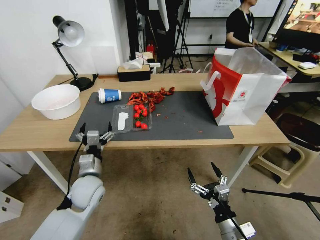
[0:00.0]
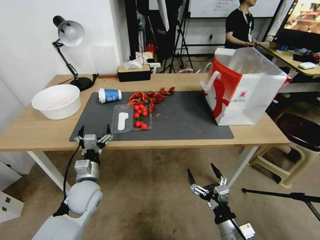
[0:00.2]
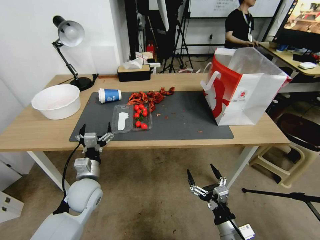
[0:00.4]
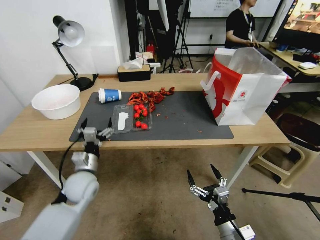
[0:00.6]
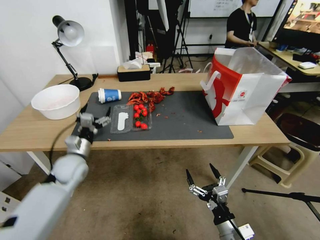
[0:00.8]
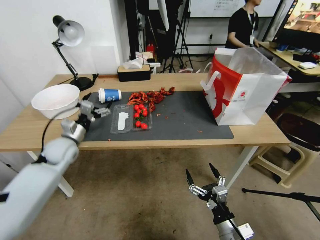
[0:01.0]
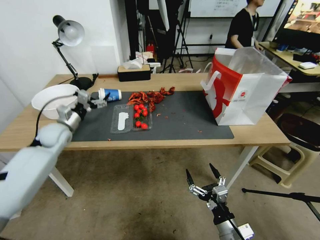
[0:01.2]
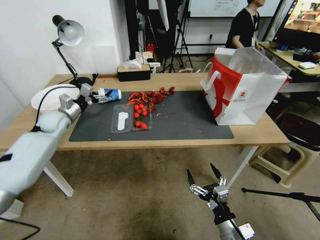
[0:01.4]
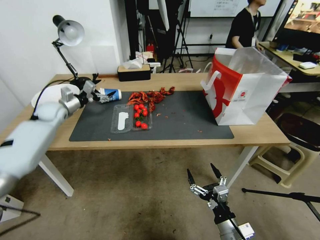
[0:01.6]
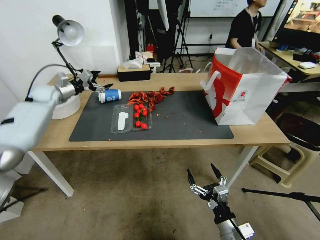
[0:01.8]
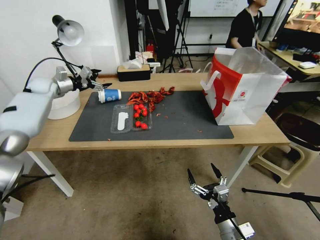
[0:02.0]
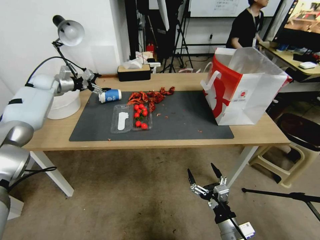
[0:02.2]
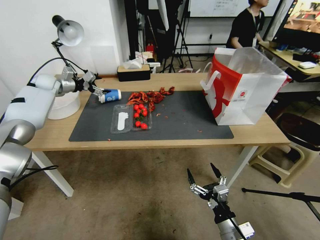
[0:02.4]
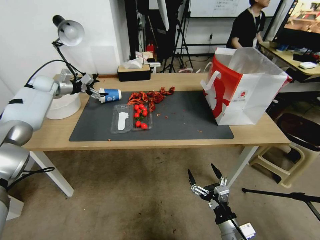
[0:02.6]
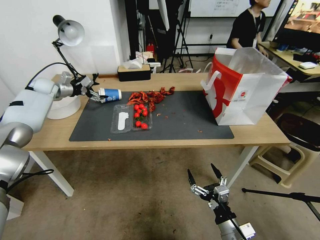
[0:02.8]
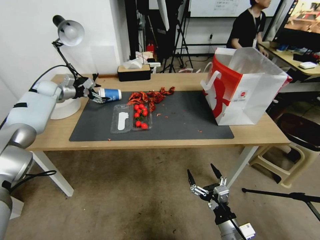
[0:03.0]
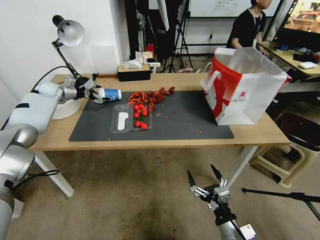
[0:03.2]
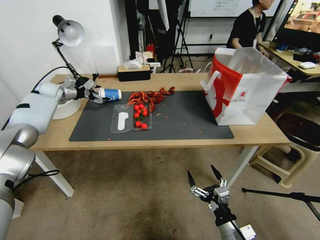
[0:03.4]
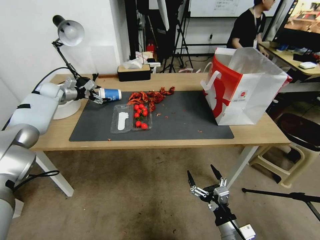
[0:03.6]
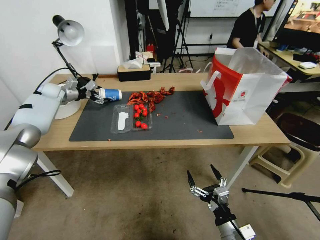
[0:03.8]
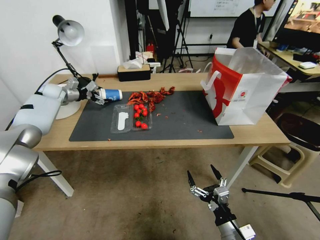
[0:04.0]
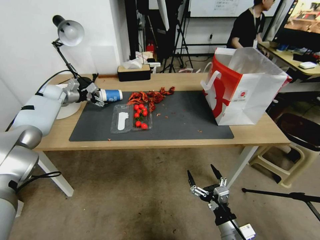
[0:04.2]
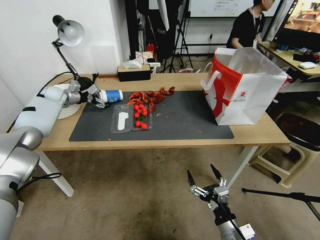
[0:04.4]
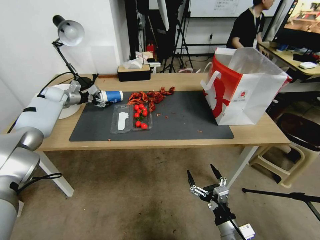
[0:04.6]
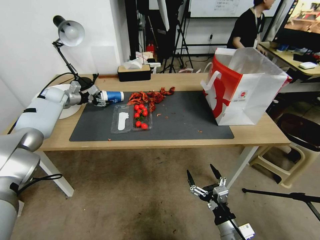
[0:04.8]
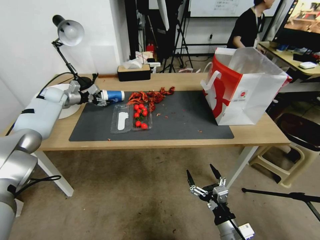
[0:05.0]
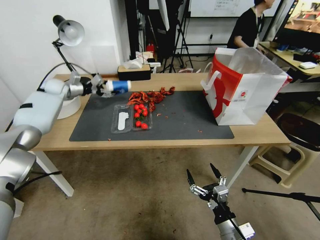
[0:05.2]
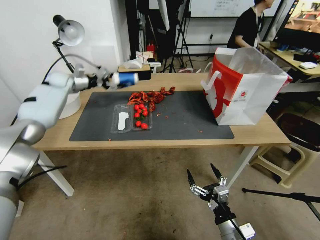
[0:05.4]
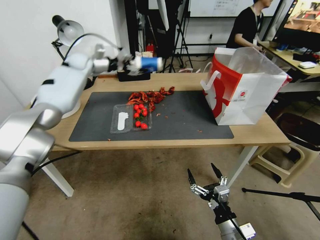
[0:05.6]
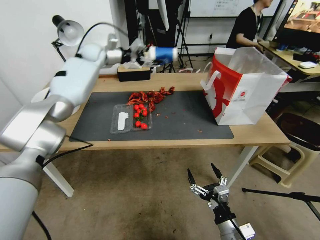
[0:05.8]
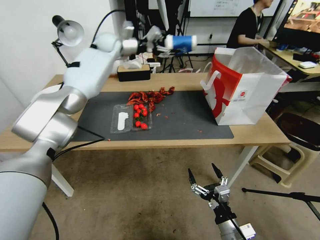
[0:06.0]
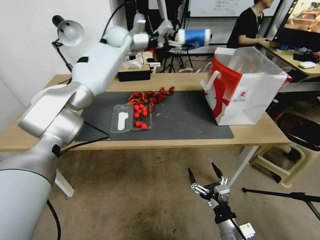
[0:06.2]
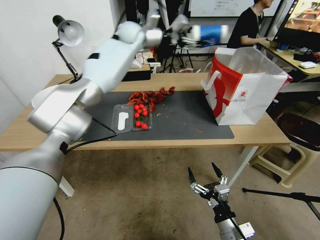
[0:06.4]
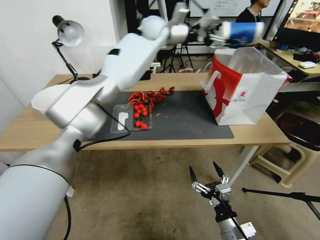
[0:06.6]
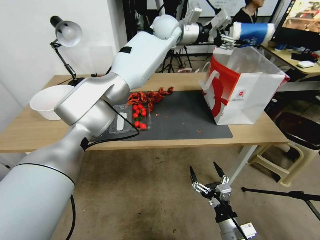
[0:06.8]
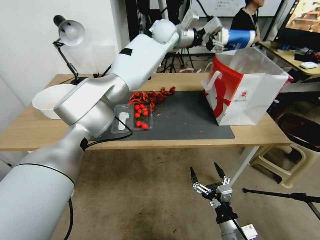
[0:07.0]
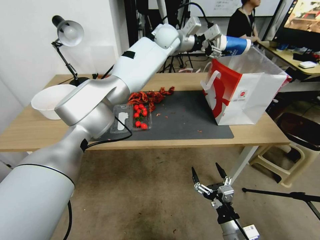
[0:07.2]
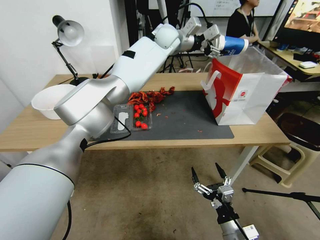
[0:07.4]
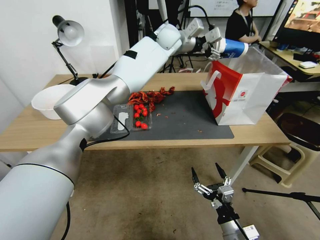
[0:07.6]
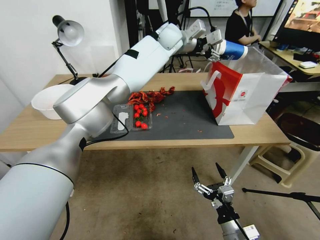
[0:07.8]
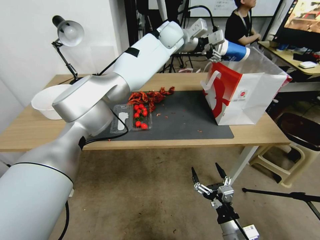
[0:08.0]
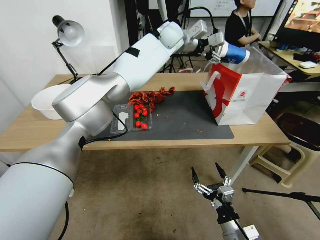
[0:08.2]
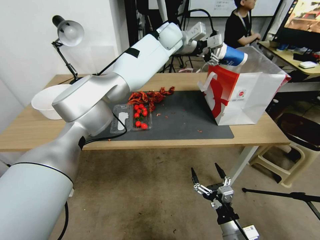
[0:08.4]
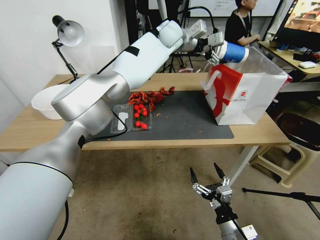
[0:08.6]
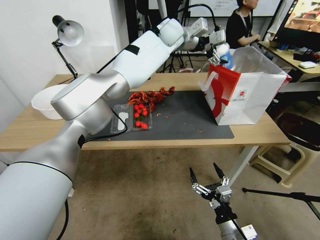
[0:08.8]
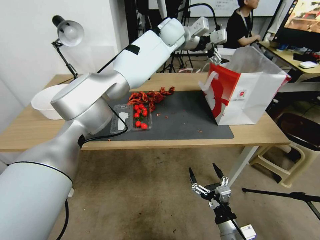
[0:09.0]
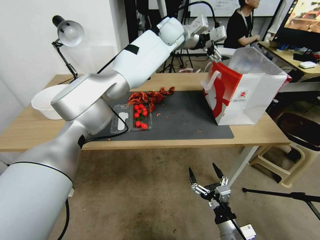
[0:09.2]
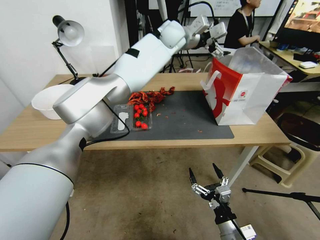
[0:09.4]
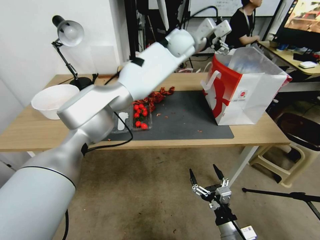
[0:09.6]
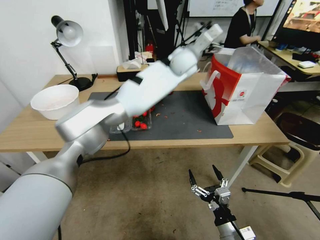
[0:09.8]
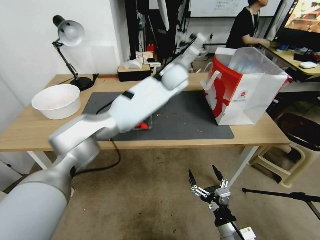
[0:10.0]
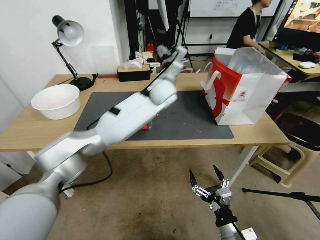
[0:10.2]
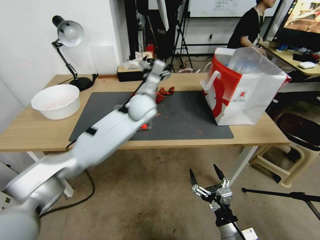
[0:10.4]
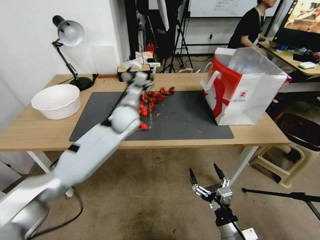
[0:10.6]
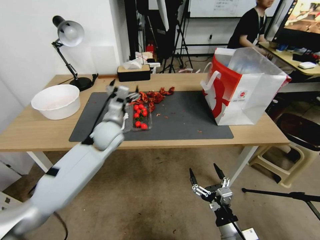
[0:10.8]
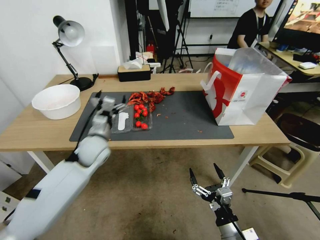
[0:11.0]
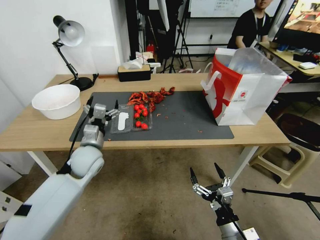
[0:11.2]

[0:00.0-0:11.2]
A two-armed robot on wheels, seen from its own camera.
0:00.0 to 0:01.6: The left gripper goes about 35 cm forward, to the left and upward.
0:01.6 to 0:03.2: The left gripper shifts approximately 10 cm forward and to the left.
0:03.2 to 0:04.8: The left gripper closes.
0:04.8 to 0:06.4: The left gripper moves to the right and upward, roughly 50 cm.
0:06.4 to 0:08.0: The left gripper travels to the right by roughly 10 cm.
0:08.0 to 0:09.6: The left gripper ends up about 5 cm from where it was, and opens.
0:09.6 to 0:11.2: The left gripper moves to the left, downward and backward, about 50 cm.

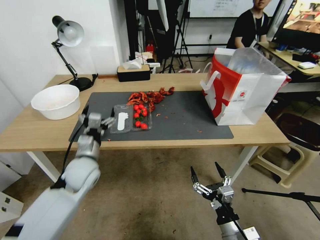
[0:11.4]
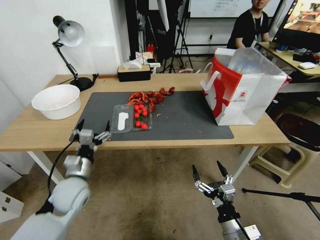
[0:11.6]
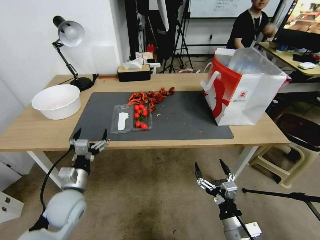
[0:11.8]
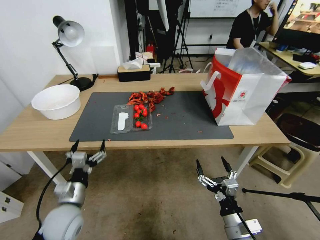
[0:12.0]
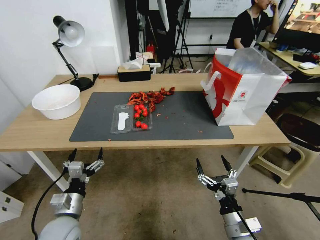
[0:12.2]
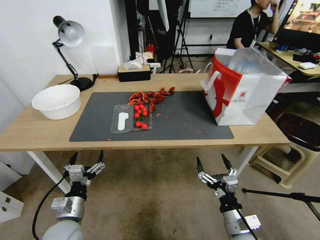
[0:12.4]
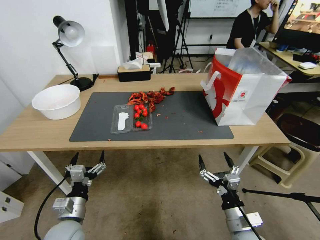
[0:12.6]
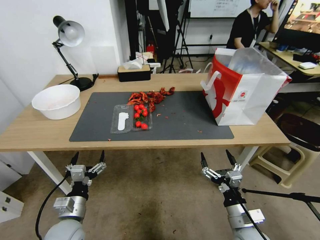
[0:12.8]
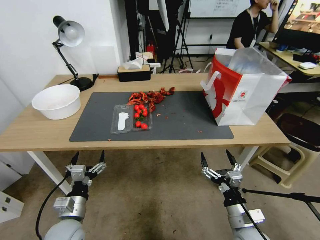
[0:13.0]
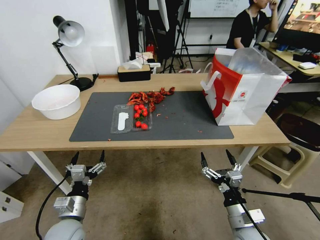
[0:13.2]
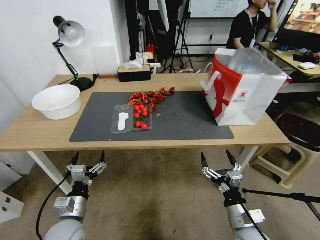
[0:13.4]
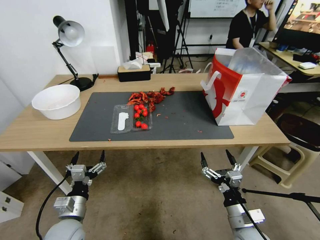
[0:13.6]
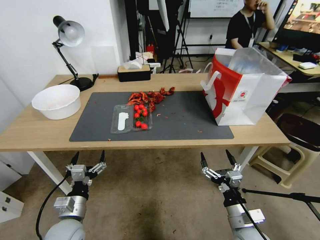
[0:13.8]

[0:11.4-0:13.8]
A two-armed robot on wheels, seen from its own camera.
0:11.4 to 0:12.6: The left gripper shifts some 15 cm backward and downward.
0:12.6 to 0:13.8: Neither gripper changes place.

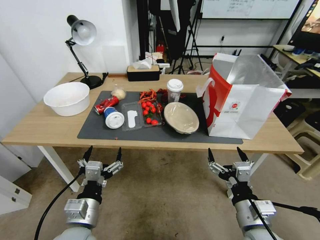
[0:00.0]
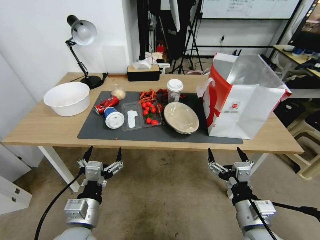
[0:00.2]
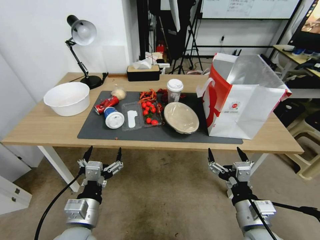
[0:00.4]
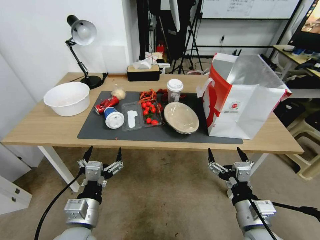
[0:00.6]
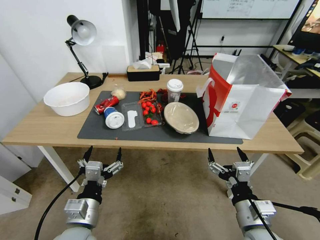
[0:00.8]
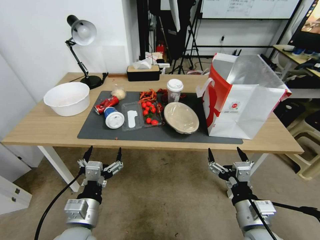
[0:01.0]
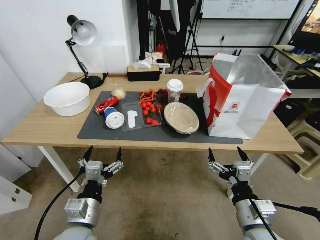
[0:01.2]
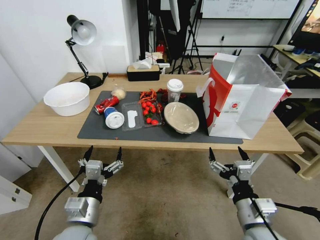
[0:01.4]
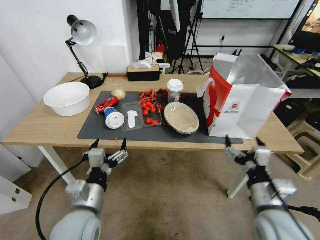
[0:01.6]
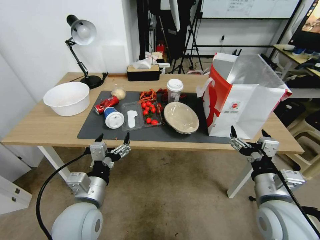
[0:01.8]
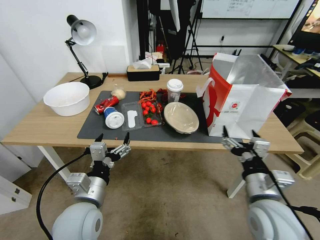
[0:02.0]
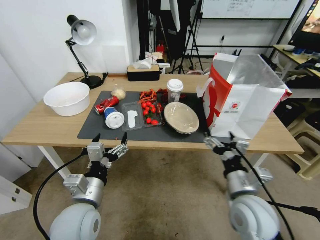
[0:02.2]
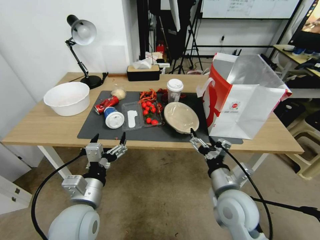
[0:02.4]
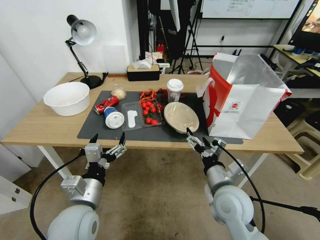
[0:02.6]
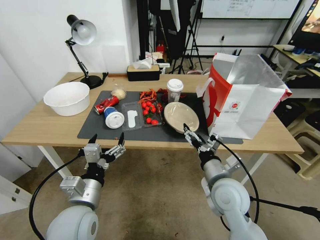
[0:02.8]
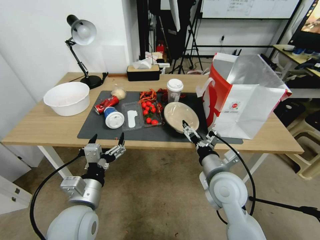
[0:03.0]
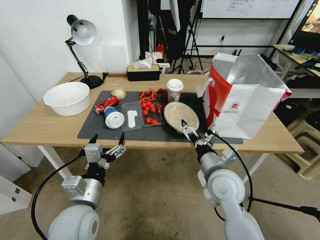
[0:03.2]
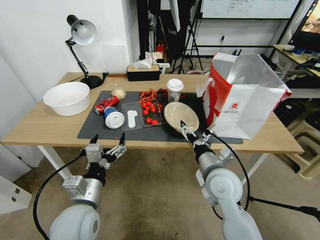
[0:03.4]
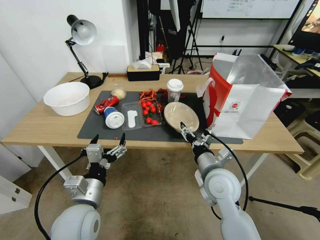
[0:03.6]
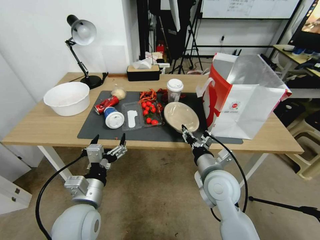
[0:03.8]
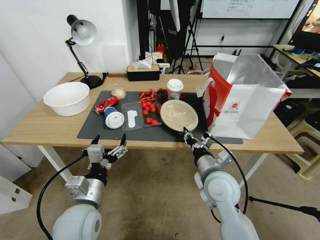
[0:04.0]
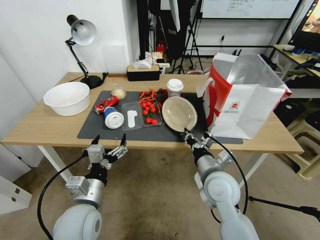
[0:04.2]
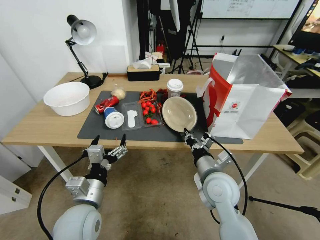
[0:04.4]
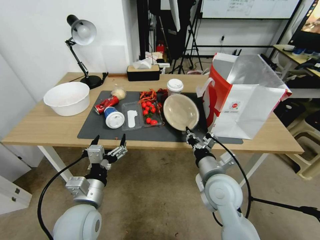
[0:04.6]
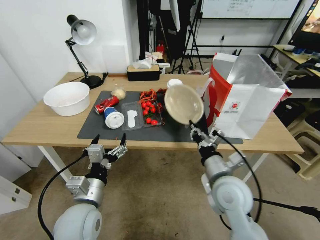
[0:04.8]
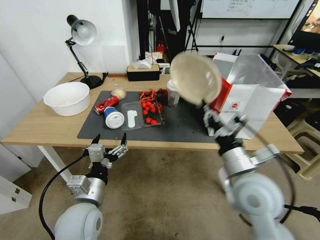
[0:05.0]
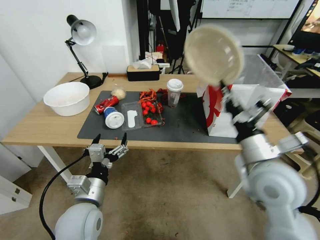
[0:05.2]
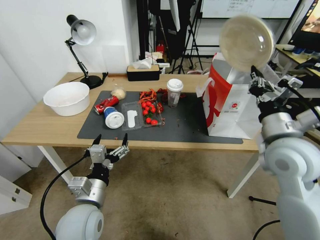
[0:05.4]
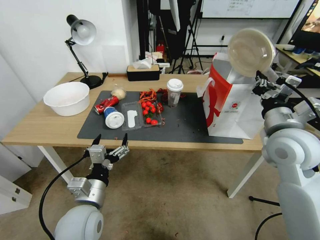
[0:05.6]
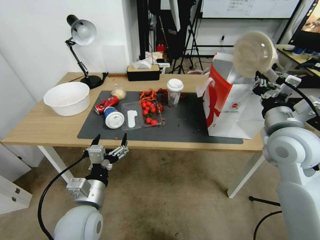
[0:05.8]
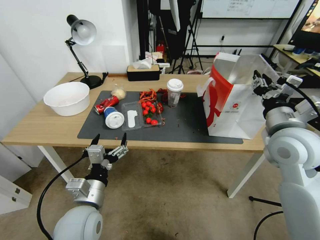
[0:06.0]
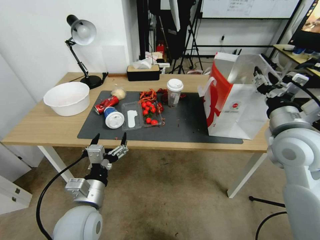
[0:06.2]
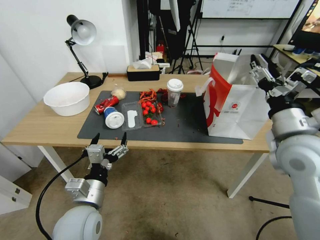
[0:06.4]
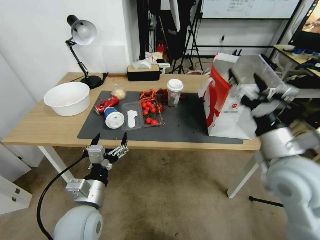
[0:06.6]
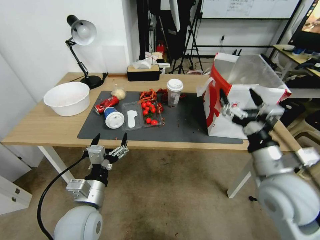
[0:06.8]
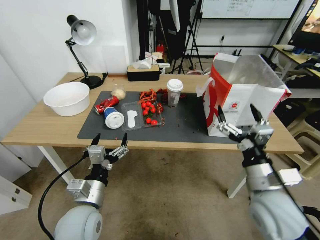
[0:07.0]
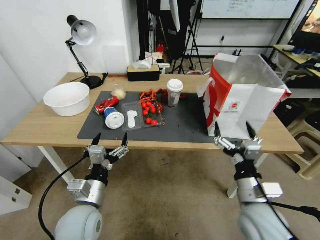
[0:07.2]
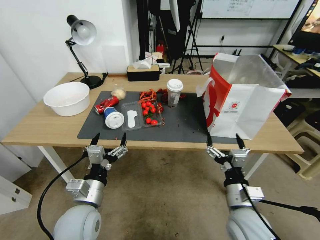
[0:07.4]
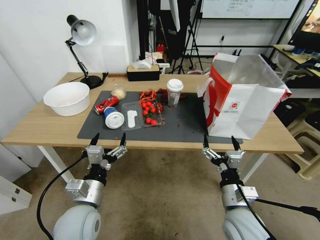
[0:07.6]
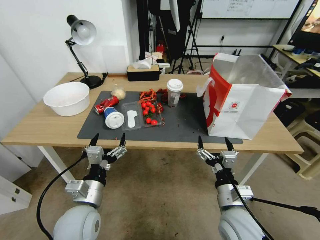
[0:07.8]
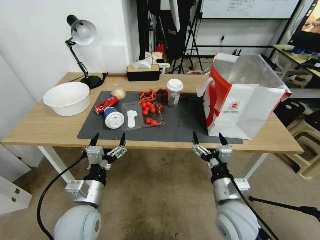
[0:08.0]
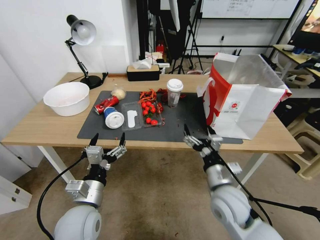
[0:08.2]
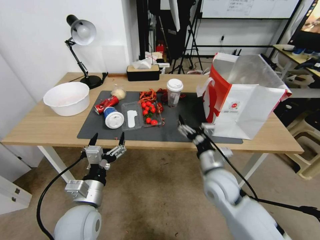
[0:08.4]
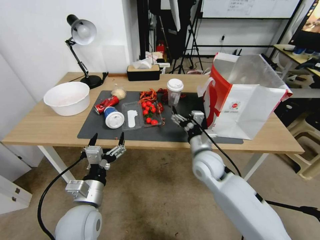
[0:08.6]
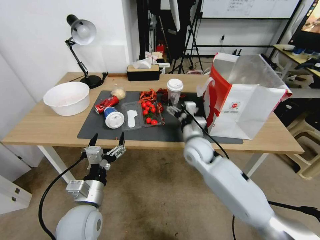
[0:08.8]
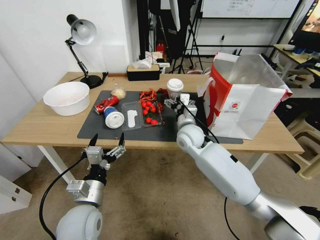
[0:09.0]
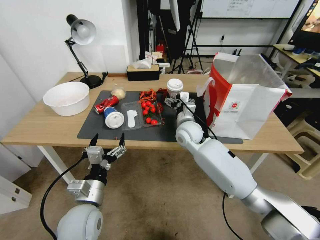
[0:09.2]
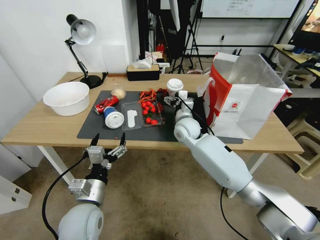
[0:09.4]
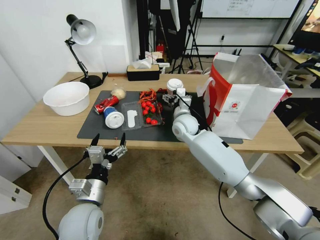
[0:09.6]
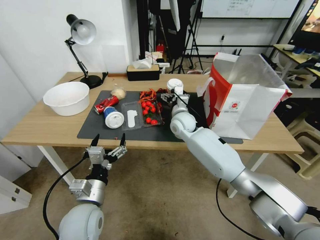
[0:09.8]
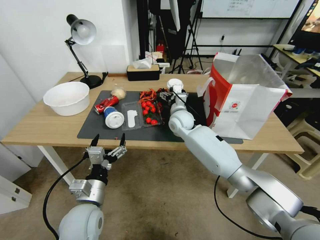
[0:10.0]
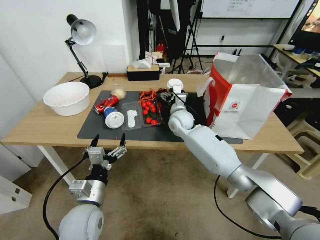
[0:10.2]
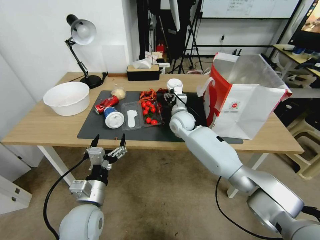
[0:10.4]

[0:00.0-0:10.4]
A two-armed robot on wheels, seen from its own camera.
0:01.4 to 0:03.0: The right gripper goes some 10 cm forward and to the left. The left gripper changes place by approximately 5 cm.
0:03.0 to 0:04.4: The right gripper closes up.
0:04.4 to 0:06.0: The right gripper shifts roughly 20 cm upward and to the right.
0:06.0 to 0:07.4: The right gripper goes approximately 20 cm downward and backward, and opens.
0:07.4 to 0:09.0: The right gripper heads forward and to the left, covering some 30 cm.
0:09.0 to 0:10.4: The right gripper goes about 10 cm forward.
